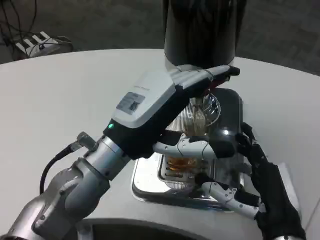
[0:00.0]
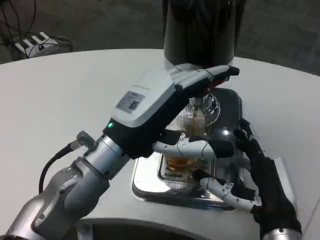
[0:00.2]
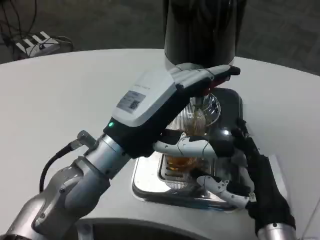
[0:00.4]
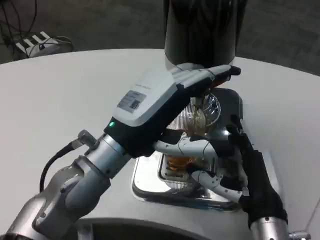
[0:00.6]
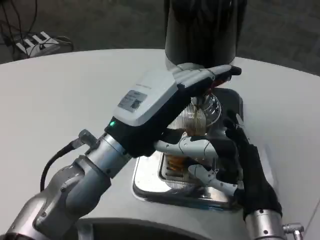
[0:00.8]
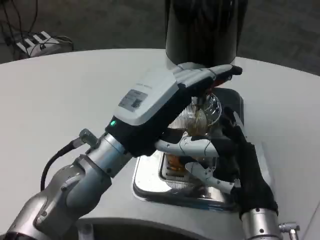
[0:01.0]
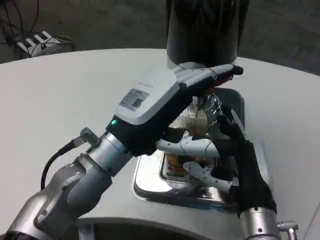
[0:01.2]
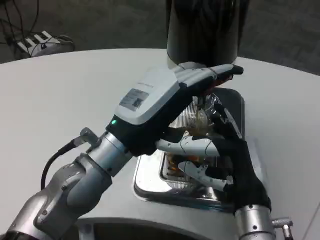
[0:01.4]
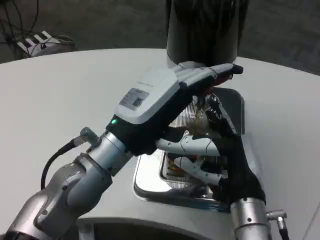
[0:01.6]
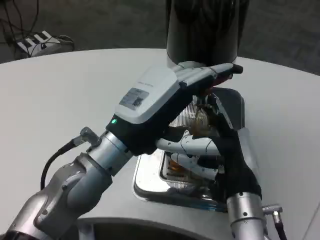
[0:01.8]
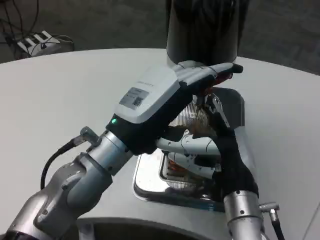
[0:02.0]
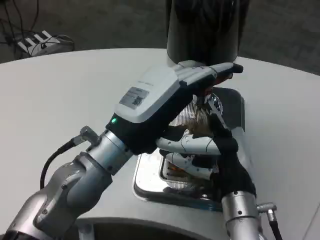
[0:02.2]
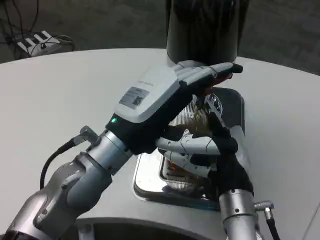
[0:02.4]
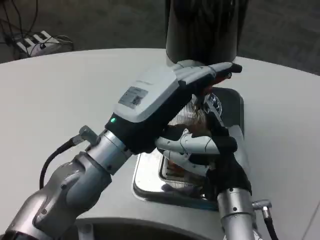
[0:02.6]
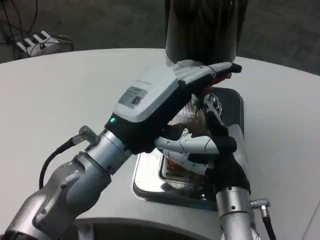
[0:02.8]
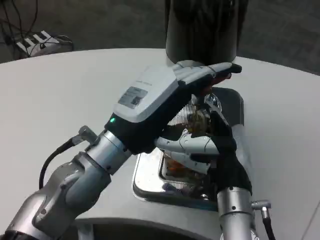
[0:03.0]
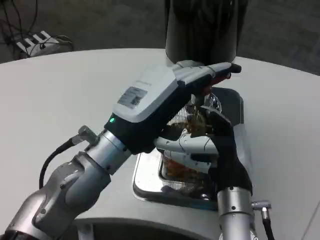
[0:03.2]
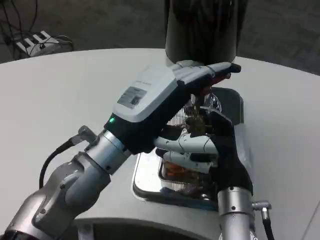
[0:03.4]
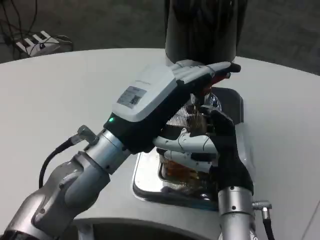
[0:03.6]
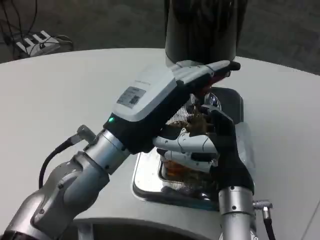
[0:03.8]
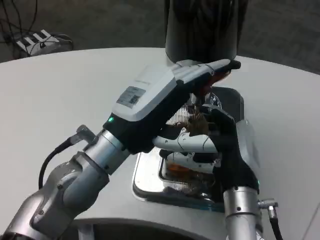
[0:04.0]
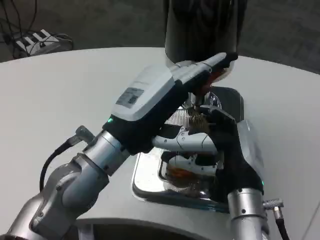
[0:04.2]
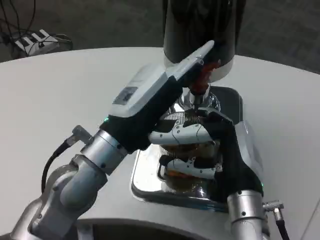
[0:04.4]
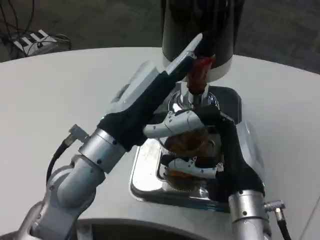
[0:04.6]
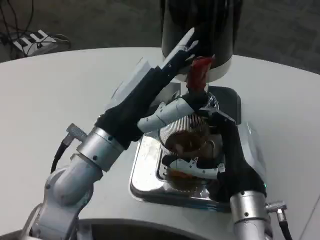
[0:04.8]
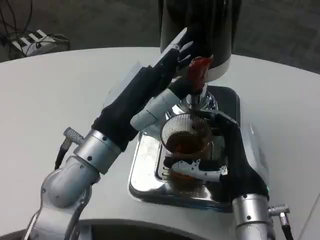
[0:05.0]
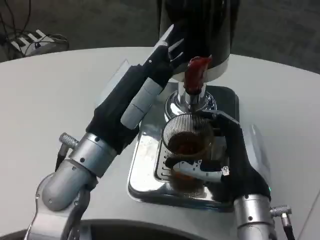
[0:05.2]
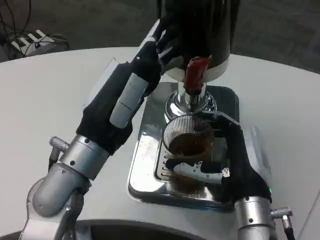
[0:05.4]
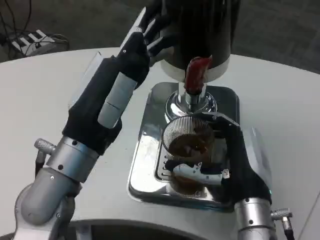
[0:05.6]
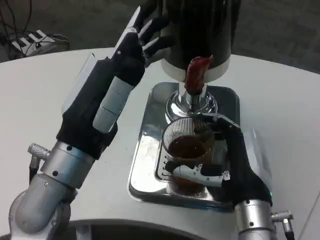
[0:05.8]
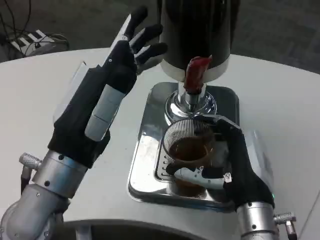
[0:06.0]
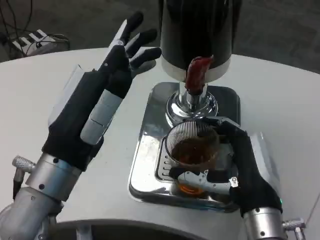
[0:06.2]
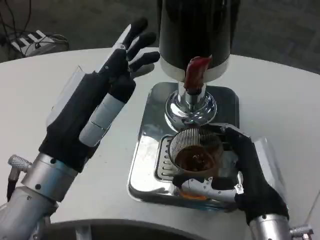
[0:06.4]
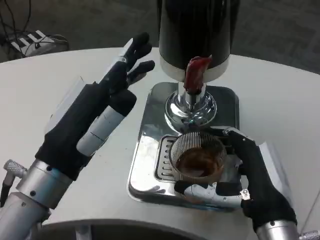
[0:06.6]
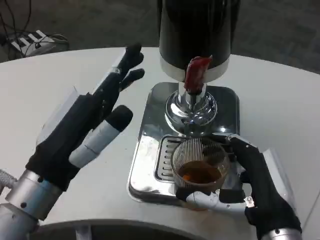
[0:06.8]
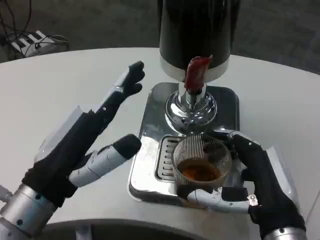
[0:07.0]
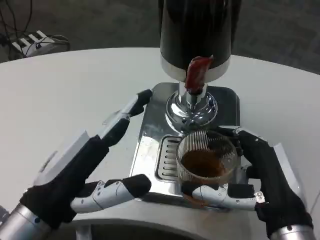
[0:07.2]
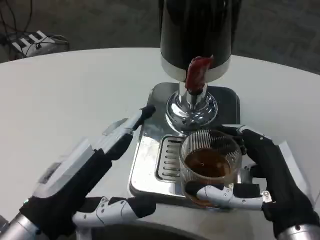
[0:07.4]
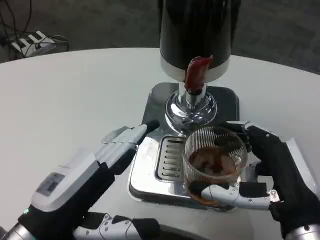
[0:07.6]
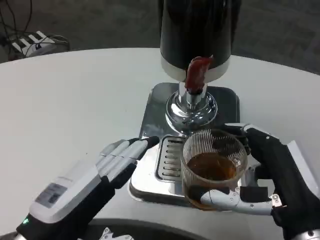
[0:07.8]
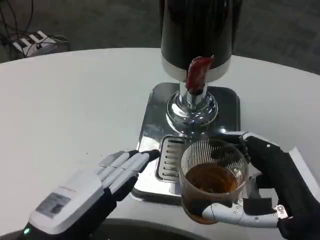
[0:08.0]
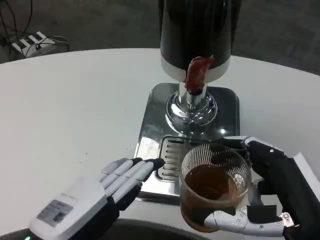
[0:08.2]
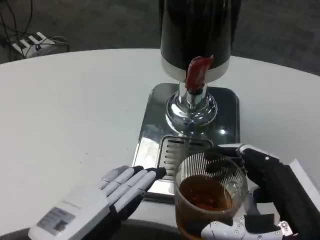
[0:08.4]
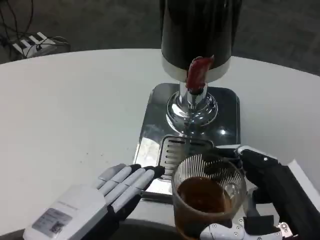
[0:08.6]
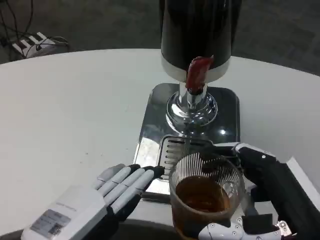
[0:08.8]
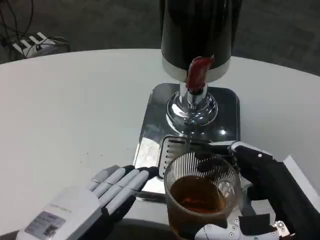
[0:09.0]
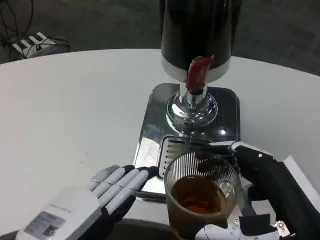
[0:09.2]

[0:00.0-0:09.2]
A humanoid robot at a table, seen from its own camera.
Task of the whole recording: Grasp the cup under the faucet to collect the drink, then remove the cup.
0:00.0 to 0:01.6: The right hand heads forward, covering roughly 5 cm.
0:01.6 to 0:03.0: There are only small adjustments of the hands.
0:04.6 to 0:06.2: The left hand moves backward, roughly 5 cm.
0:06.2 to 0:07.6: The left hand travels downward by roughly 5 cm, while the right hand goes about 5 cm backward.
0:07.6 to 0:09.2: The hands both shift backward by about 5 cm.

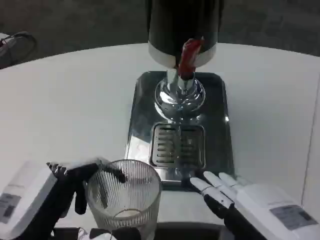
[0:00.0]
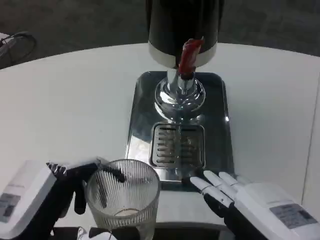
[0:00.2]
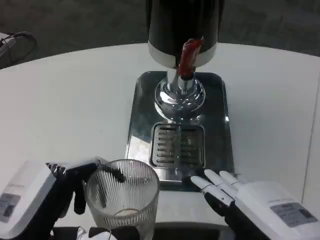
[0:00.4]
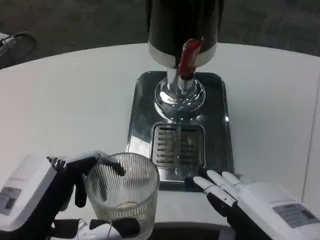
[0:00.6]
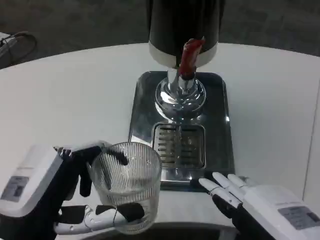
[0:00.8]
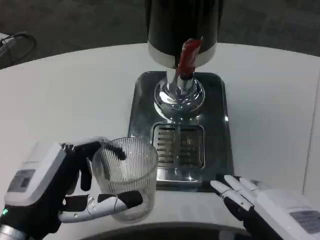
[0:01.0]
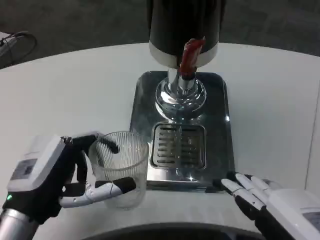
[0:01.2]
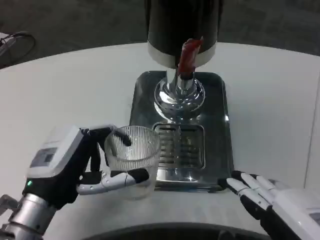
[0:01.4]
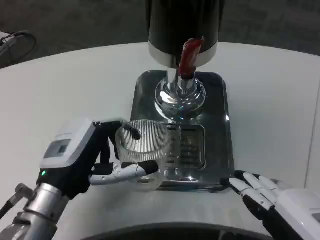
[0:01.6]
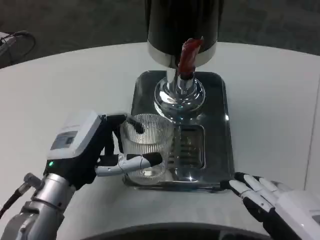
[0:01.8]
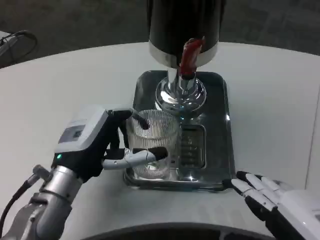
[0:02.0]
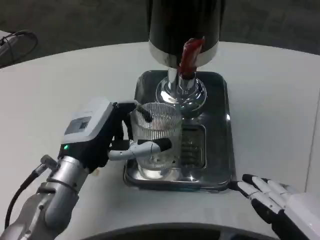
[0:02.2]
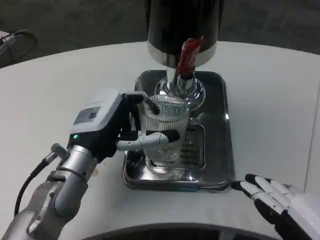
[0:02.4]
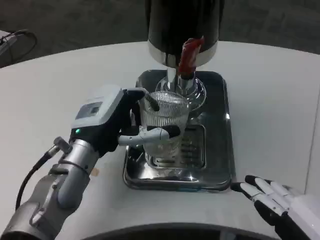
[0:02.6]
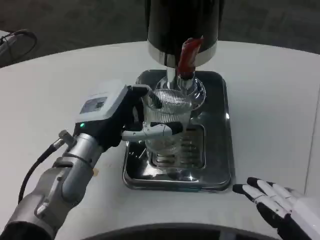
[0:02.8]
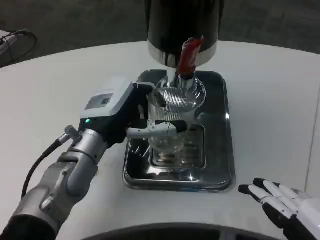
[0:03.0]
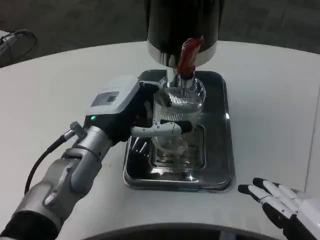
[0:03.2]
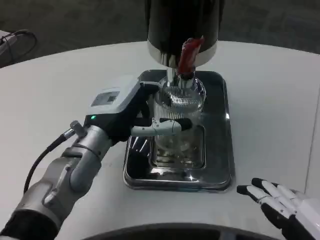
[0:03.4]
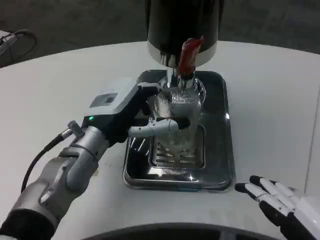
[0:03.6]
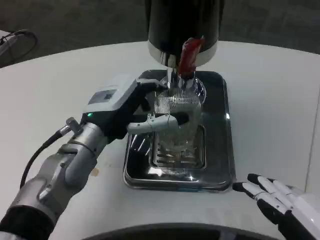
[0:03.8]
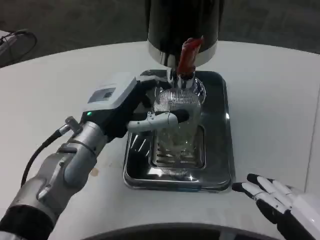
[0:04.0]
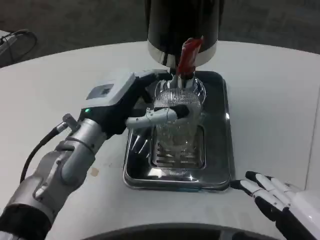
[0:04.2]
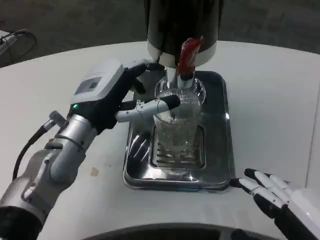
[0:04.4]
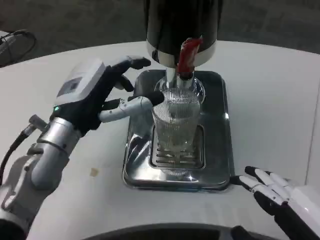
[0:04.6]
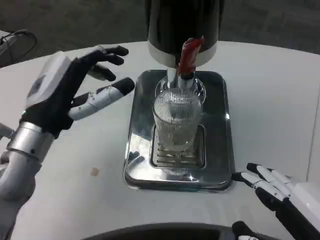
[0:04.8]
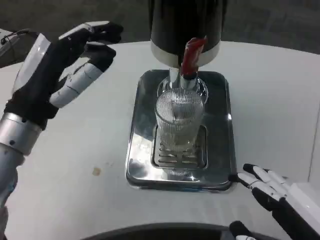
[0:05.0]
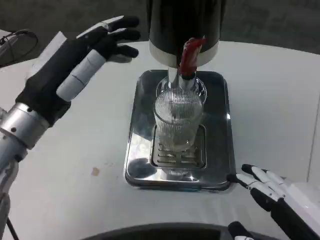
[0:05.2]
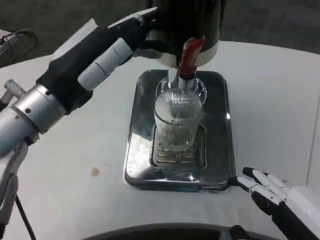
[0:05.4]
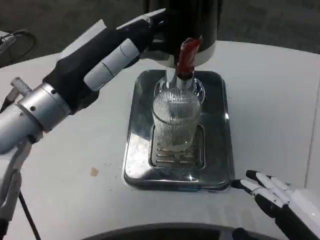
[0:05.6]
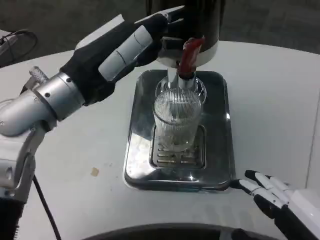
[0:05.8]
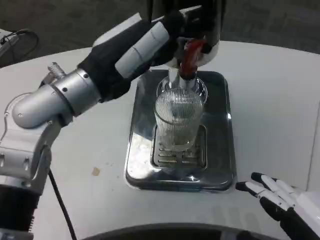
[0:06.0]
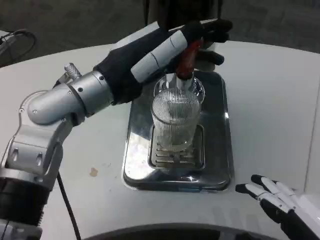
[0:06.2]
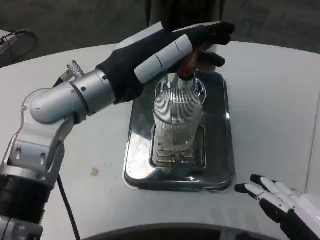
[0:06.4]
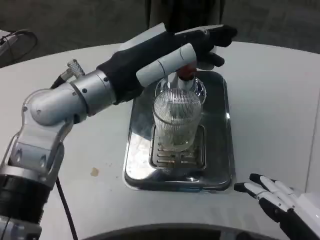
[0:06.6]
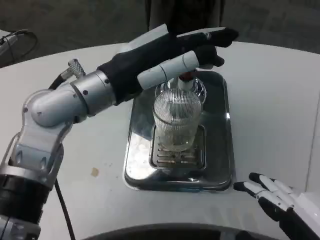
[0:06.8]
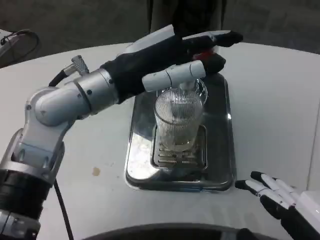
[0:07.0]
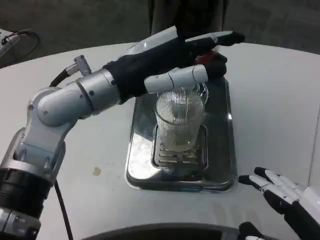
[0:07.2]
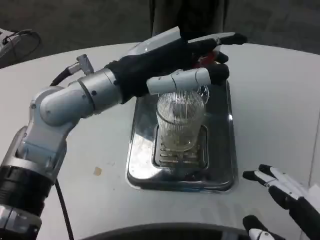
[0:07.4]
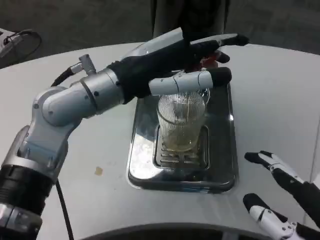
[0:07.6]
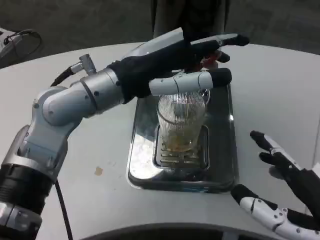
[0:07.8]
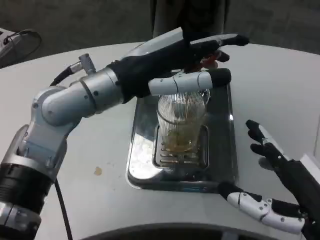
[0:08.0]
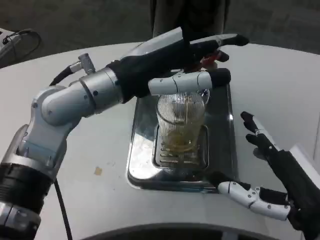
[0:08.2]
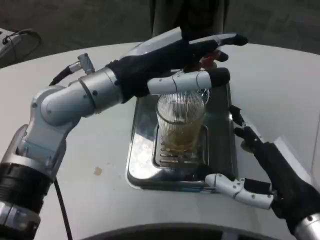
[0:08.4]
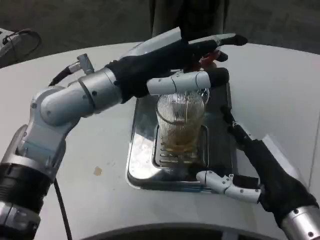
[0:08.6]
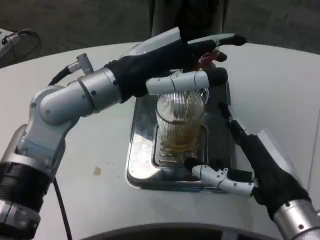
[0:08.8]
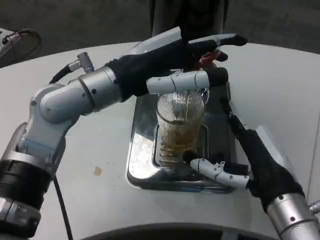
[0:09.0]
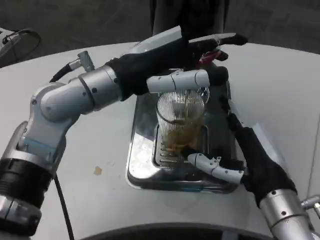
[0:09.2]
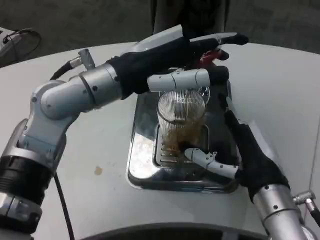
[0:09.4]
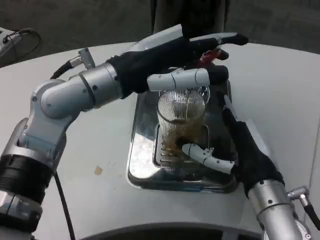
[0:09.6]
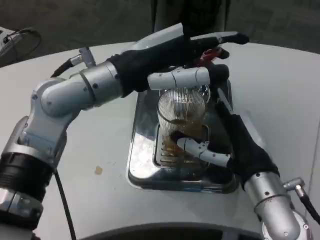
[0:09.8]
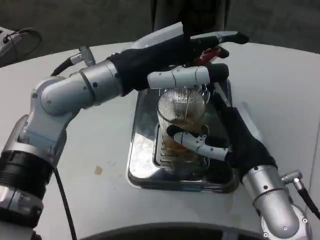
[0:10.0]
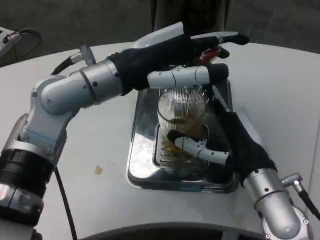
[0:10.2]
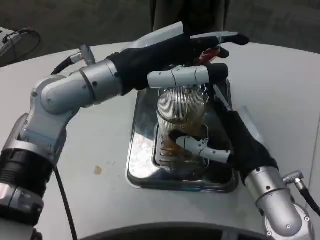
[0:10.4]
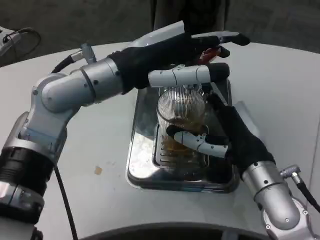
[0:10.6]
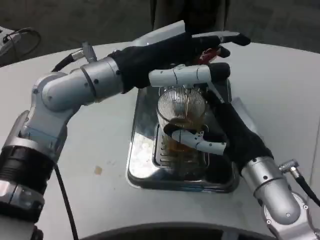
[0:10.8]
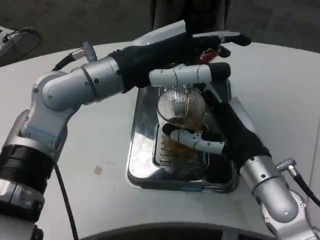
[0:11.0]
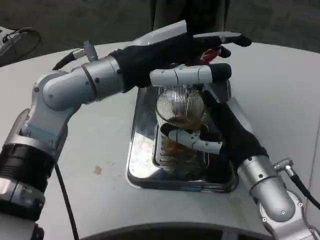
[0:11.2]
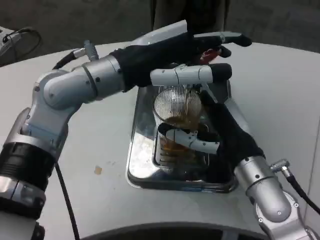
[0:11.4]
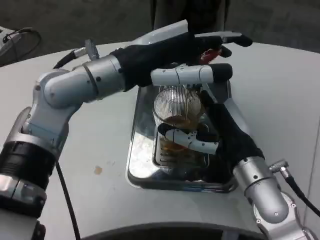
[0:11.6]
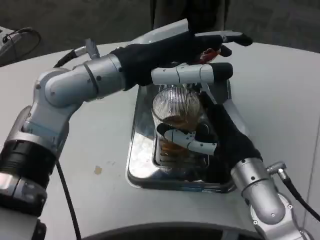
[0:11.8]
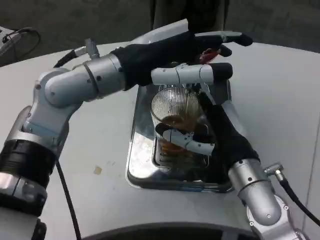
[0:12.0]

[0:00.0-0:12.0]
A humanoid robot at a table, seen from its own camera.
Task of the whole recording: Grasp the cup under the faucet to collect the drink, then remove the cup.
0:00.0 to 0:01.6: The left hand moves forward, about 10 cm.
0:01.6 to 0:03.0: The left hand travels forward by some 5 cm.
0:04.4 to 0:06.0: The left hand is displaced upward by about 10 cm.
0:07.6 to 0:09.0: The right hand travels forward and to the left by about 15 cm.
0:09.0 to 0:10.4: The right hand shifts approximately 5 cm forward.

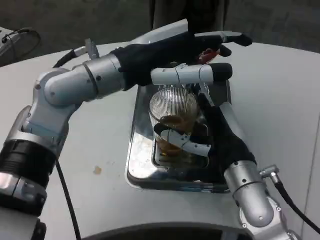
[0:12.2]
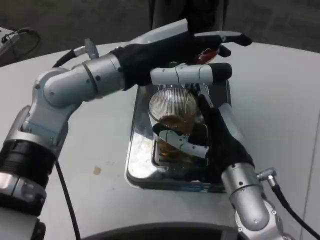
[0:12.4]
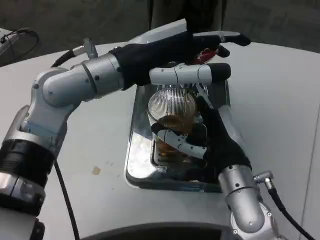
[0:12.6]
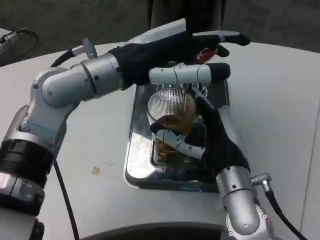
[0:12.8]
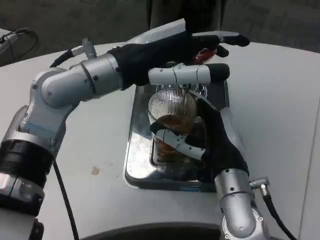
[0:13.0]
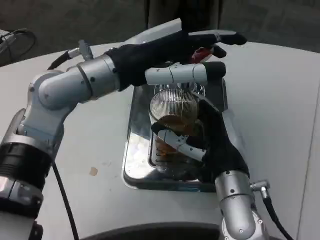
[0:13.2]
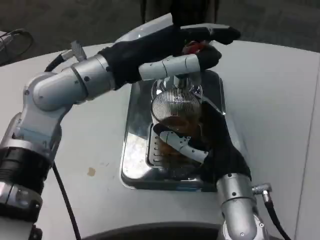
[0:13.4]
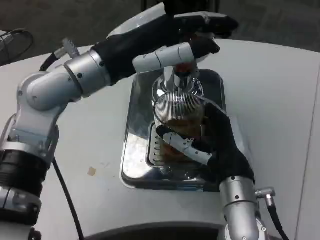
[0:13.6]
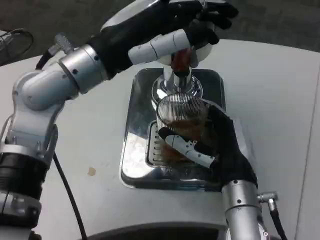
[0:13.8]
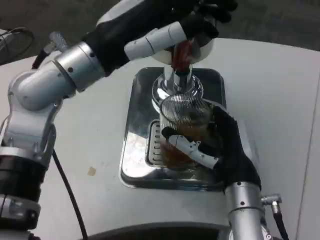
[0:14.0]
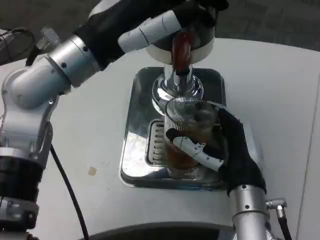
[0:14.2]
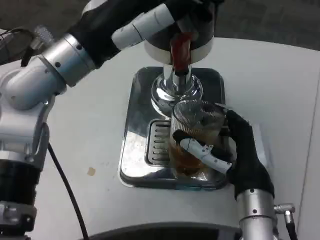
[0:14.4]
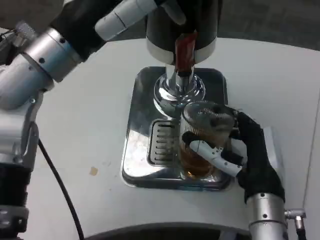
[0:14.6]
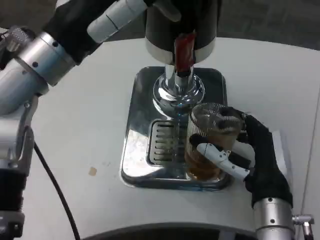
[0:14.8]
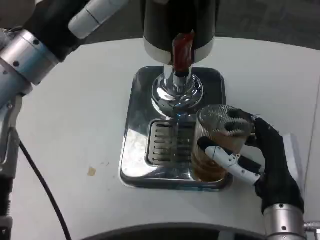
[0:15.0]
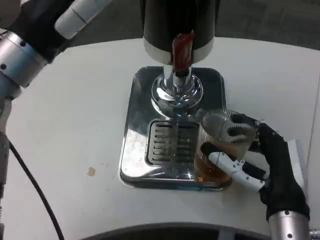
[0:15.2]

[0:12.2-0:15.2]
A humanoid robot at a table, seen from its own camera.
Task of the whole recording: Grasp the cup under the faucet to collect the drink, then remove the cup.
0:13.8 to 0:15.2: The right hand shifts by some 5 cm, while the left hand goes approximately 5 cm to the left.
